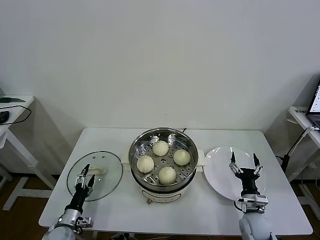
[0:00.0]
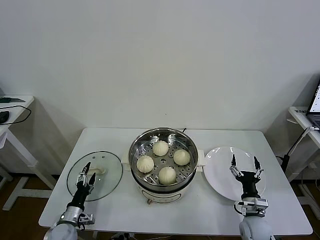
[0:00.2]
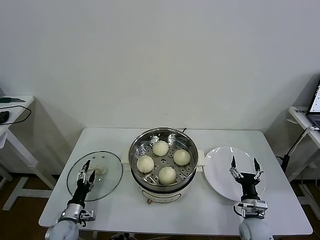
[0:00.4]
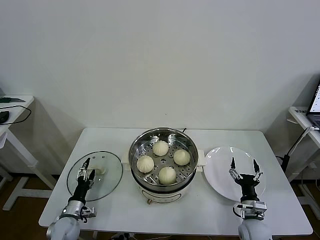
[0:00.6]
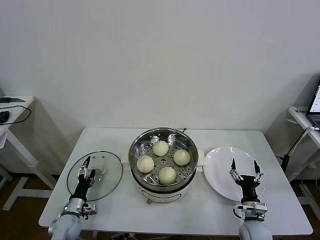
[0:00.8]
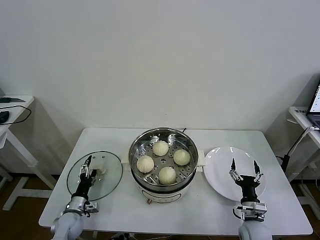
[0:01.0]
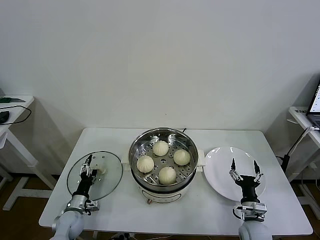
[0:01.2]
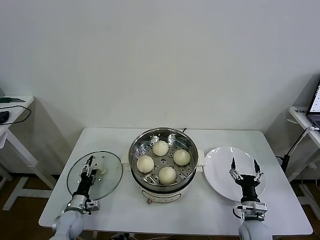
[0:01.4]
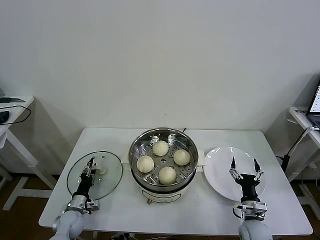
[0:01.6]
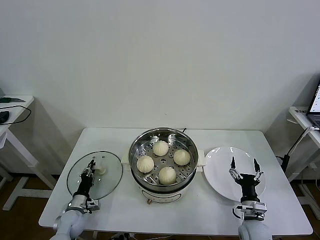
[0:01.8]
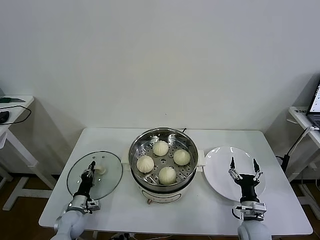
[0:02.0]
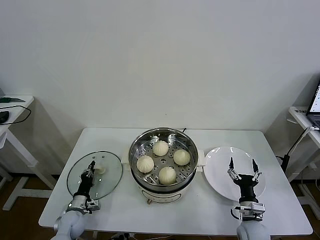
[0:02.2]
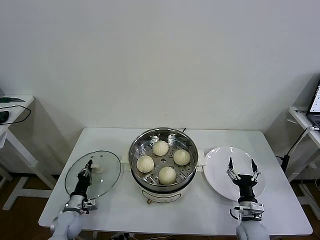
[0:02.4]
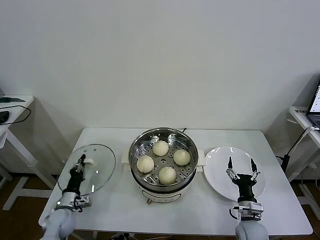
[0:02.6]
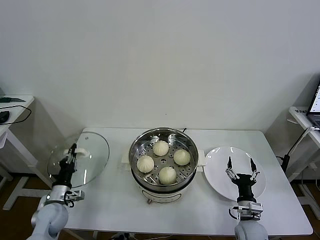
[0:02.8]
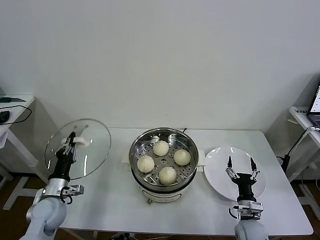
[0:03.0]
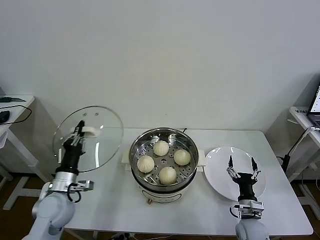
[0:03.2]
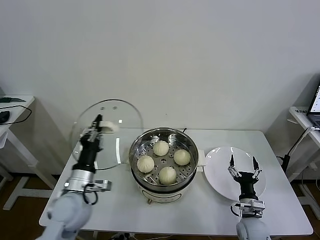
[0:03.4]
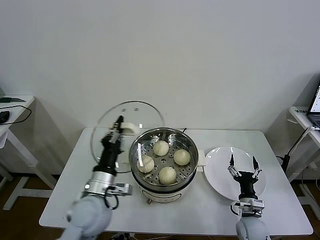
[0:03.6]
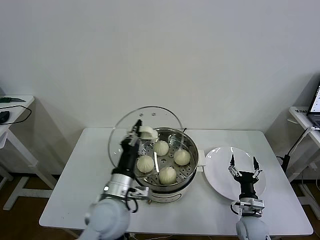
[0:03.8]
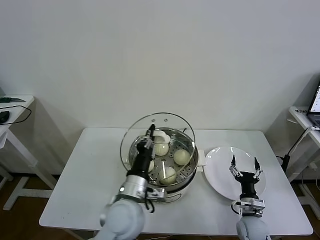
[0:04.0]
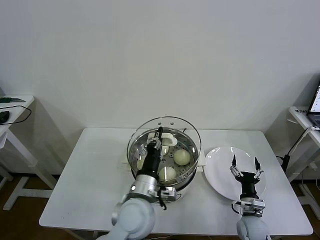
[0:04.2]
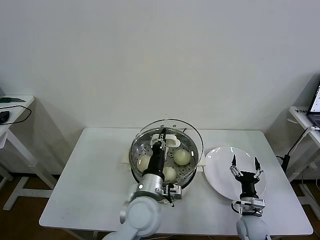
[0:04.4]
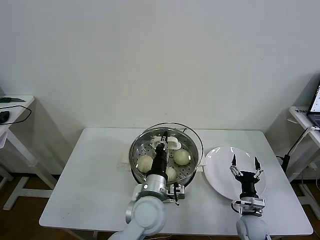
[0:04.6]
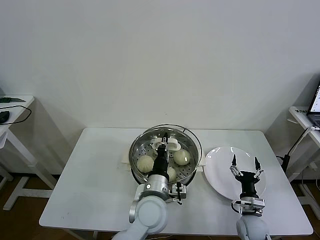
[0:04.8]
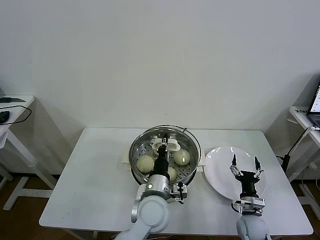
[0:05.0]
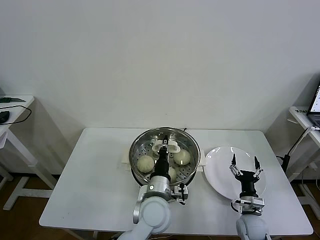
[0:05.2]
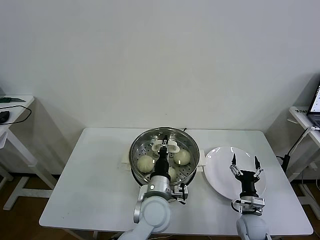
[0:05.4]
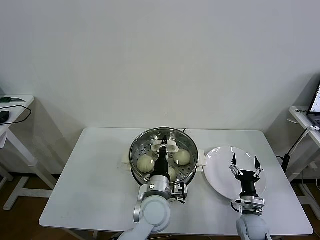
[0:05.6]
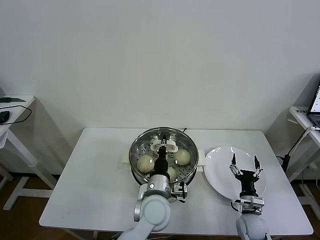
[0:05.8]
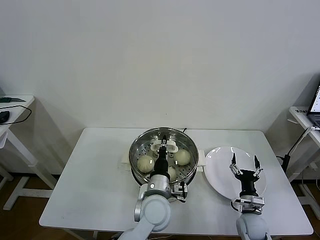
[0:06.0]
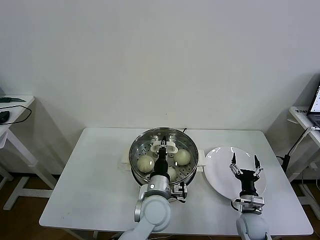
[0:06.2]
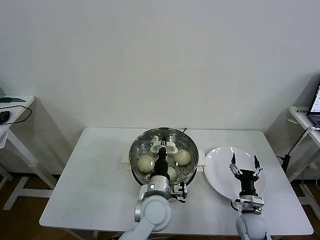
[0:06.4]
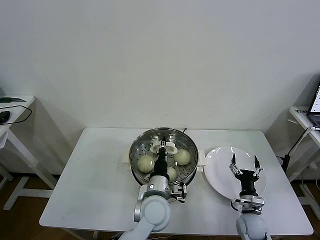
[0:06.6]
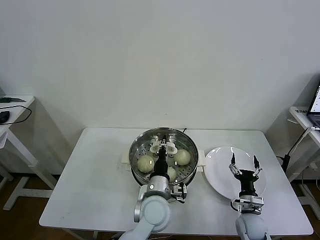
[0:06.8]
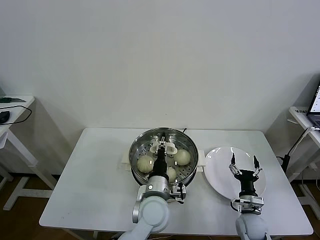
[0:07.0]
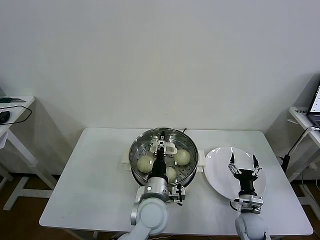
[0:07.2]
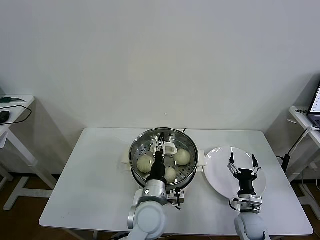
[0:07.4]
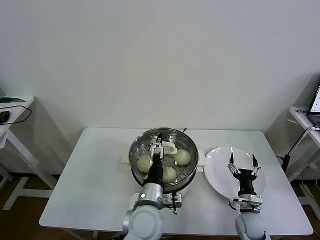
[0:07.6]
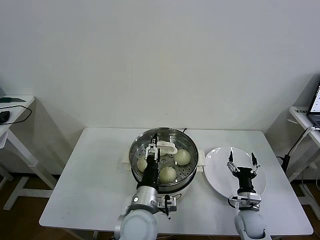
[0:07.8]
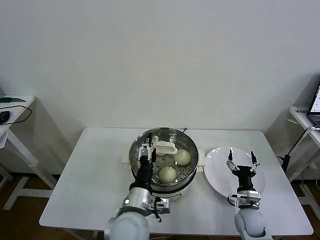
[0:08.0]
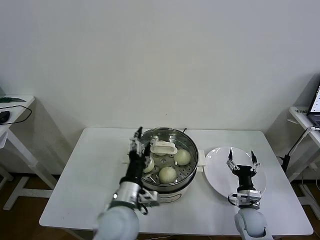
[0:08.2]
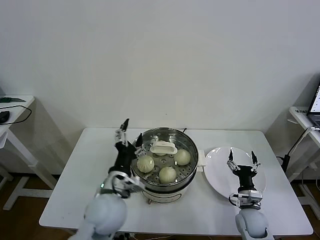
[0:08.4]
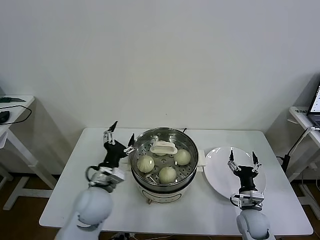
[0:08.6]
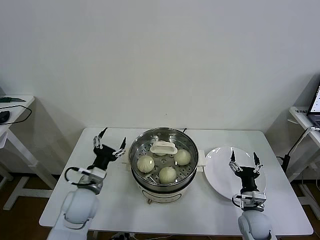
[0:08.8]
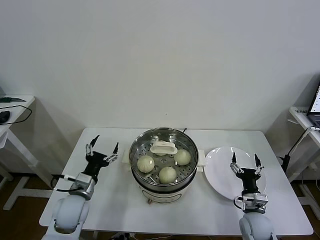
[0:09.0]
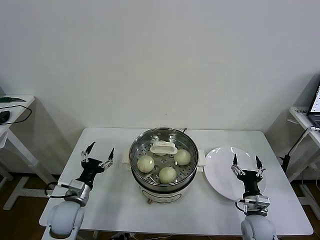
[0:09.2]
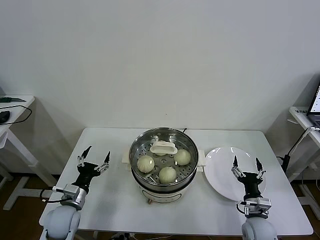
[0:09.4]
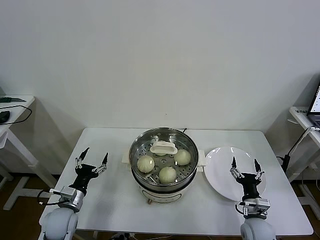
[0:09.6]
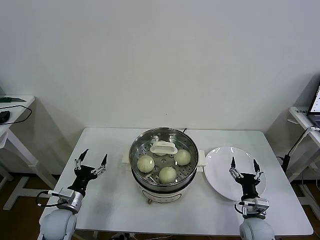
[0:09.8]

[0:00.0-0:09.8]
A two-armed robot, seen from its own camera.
Task of the whole recording: take steamed baozi put them in steamer then cover it.
Step, 0:00.0 to 0:02.0: Grasp the pot lid with left gripper.
Step, 0:02.2 to 0:06.8: Place the pot lid on the steamer with left gripper.
0:00.0 to 0:01.4: The left gripper shifts roughly 5 cm forward.
0:01.4 to 0:02.8: The left gripper moves upward, roughly 5 cm, and closes.
0:02.8 to 0:04.2: The left gripper goes about 35 cm to the right and upward.
0:04.2 to 0:05.6: The left gripper is displaced to the right and downward by approximately 5 cm.
0:05.6 to 0:07.0: The left gripper opens.
0:07.0 to 0:08.4: The left gripper travels to the left and upward by roughly 10 cm, and opens up.
0:08.4 to 0:09.8: The left gripper moves to the left and downward, about 25 cm.

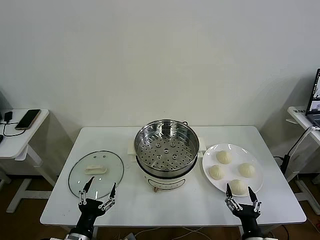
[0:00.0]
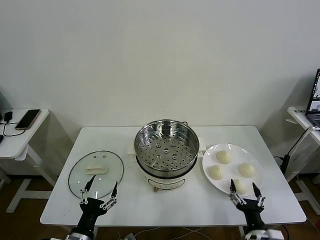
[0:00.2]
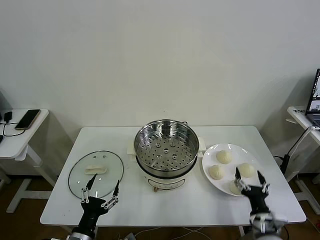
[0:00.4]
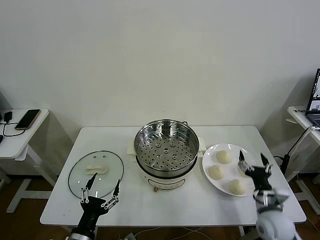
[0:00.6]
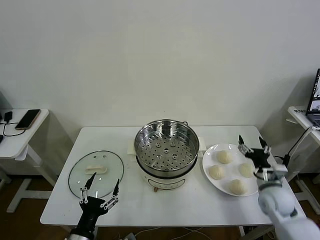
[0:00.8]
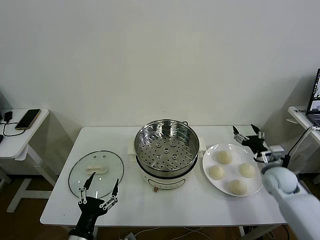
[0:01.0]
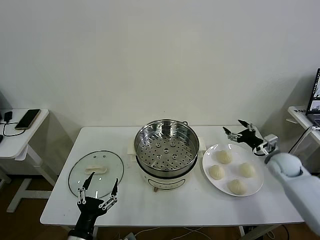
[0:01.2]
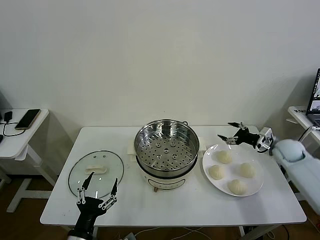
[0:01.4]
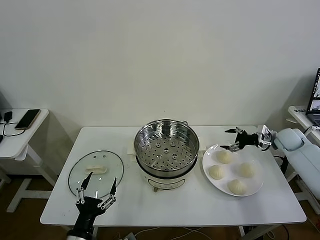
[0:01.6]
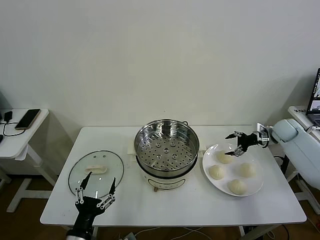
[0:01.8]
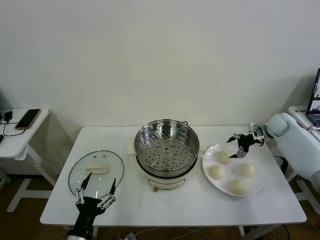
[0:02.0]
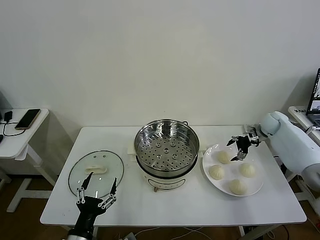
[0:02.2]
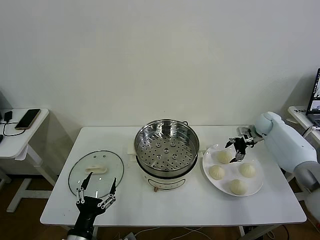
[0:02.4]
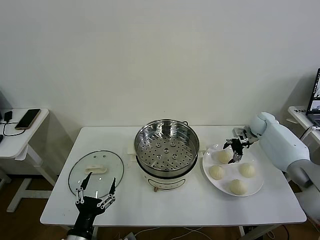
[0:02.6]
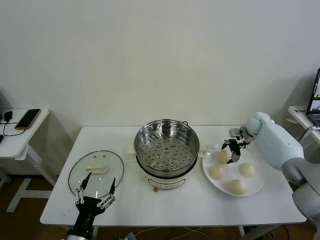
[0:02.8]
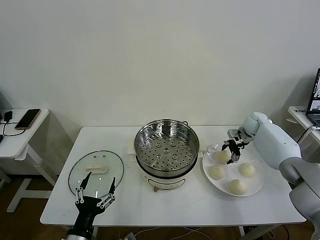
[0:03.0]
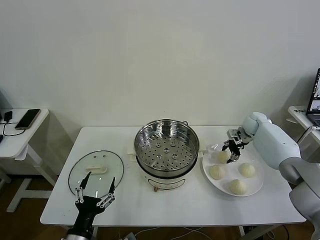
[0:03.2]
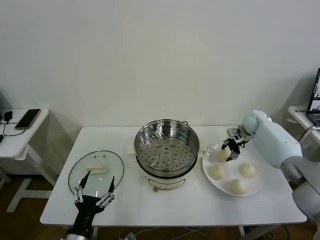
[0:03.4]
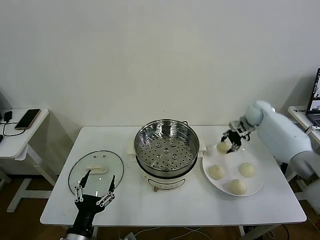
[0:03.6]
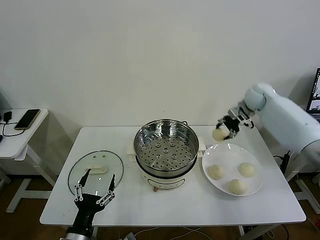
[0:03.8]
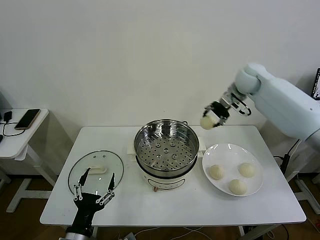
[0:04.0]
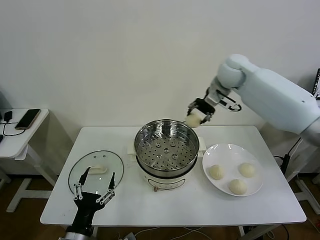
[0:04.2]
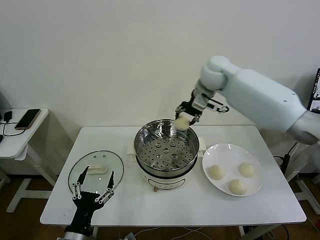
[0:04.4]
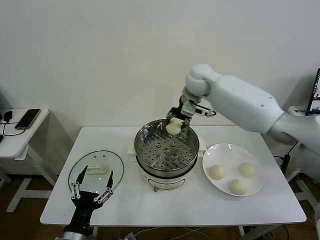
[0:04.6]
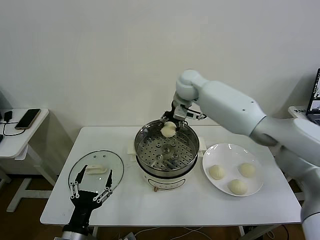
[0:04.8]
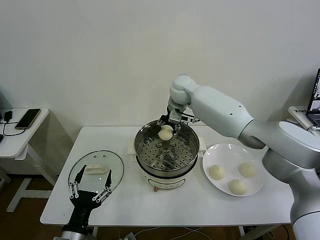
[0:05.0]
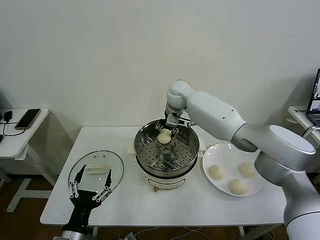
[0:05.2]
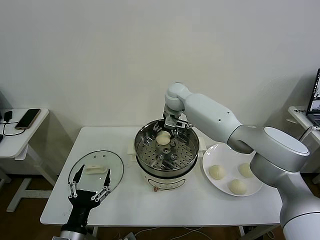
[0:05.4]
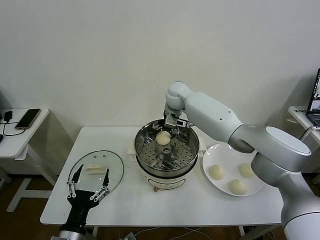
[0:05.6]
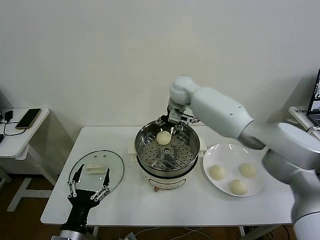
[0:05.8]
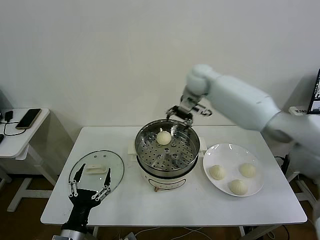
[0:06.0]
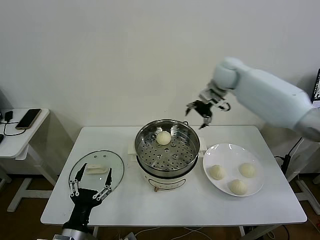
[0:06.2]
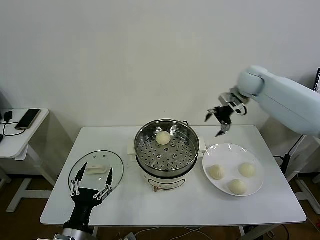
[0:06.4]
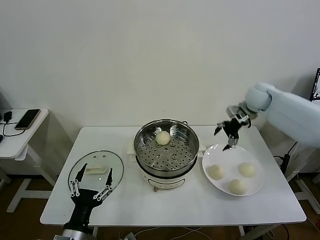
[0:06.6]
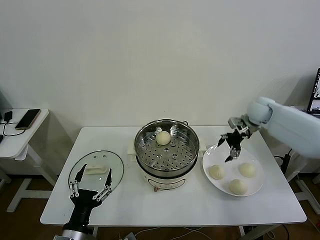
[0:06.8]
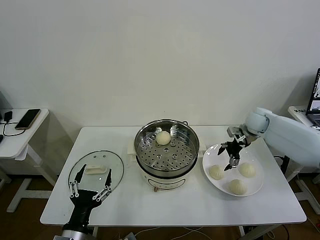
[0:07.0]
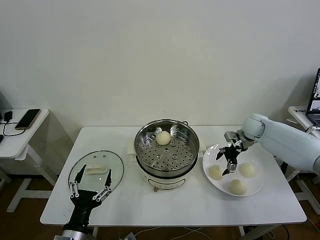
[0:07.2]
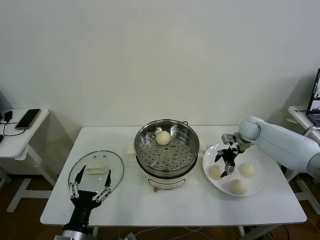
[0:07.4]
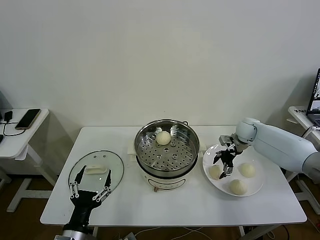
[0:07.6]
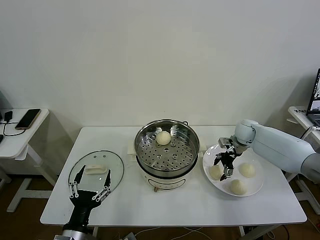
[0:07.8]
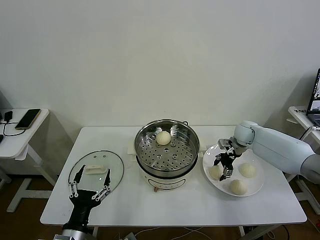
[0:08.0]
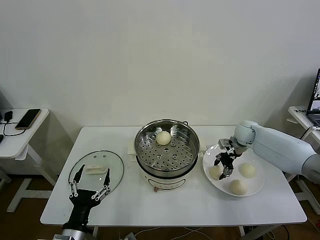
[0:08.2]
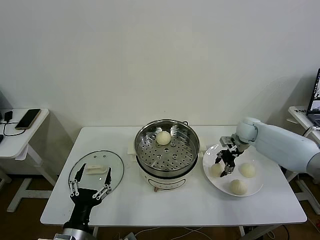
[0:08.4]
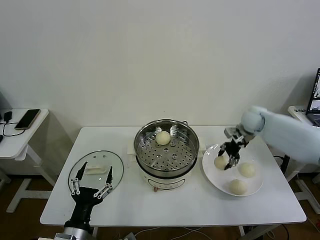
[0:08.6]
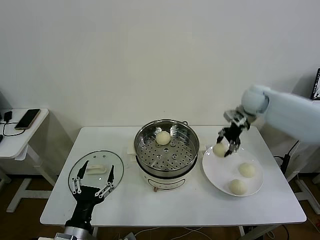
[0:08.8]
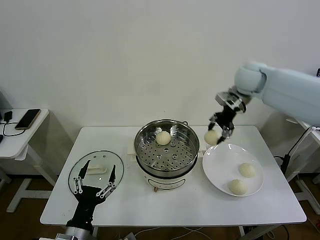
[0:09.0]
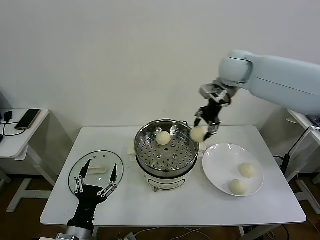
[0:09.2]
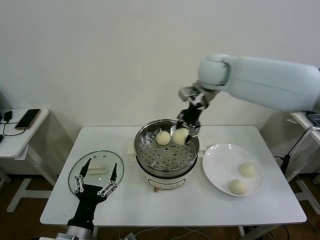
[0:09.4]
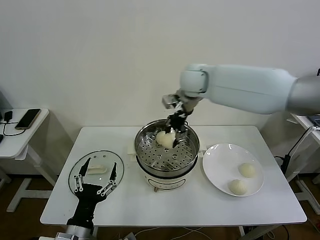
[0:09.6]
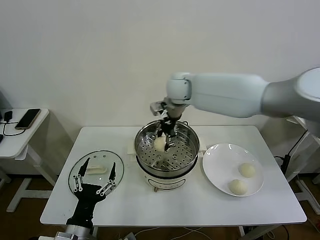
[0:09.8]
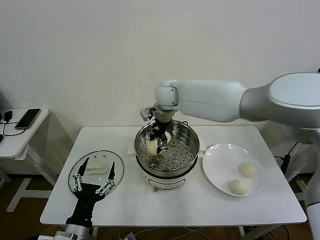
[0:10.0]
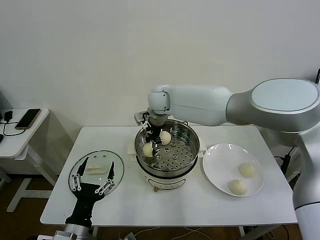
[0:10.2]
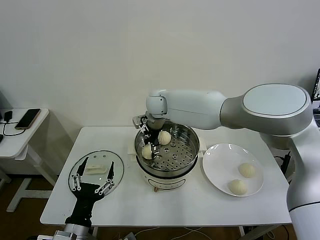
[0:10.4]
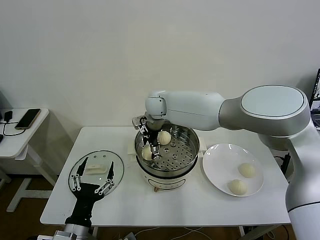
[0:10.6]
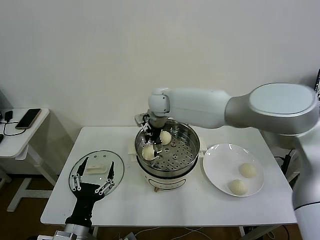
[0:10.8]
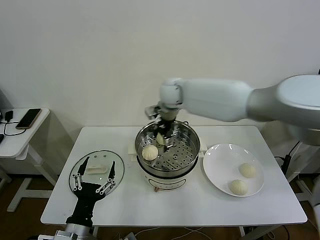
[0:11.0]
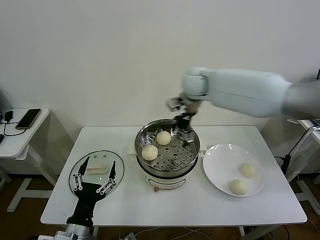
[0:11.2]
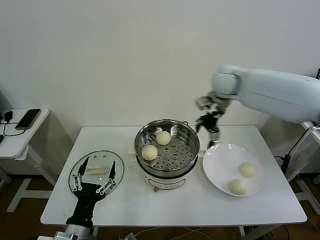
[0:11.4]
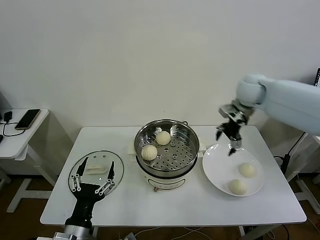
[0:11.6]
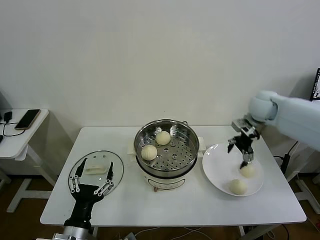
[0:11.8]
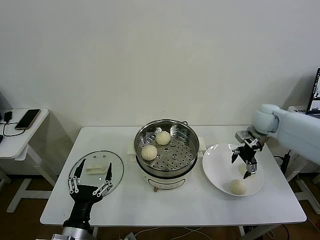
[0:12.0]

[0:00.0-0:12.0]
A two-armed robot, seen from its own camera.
Task of the whole recording: take steamed baozi put them in steamer then cover it.
Step, 0:00.0 to 0:03.2: Grasp the baozi in the plate with right gripper.
Step, 0:03.4 to 0:05.8: Place the baozi on the steamer with right gripper.
Step, 0:06.0 to 0:08.2: Grasp the baozi in the plate with right gripper.
Step, 0:08.4 to 0:10.8: Place the baozi on the steamer with right gripper.
0:01.6 to 0:03.0: The right gripper is displaced to the left and forward by approximately 10 cm, and closes.
0:03.0 to 0:04.4: The right gripper shifts approximately 35 cm to the left and upward, and closes up.
0:04.4 to 0:06.0: The right gripper travels to the left and back again, roughly 10 cm each way, and opens its fingers.
0:06.0 to 0:07.6: The right gripper is displaced downward and to the right by roughly 30 cm.
0:07.6 to 0:09.0: The right gripper travels upward by roughly 25 cm, and closes up.
0:09.0 to 0:10.4: The right gripper moves to the left and downward, approximately 30 cm, and opens its fingers.
0:10.4 to 0:12.0: The right gripper is displaced to the right by approximately 40 cm, and opens its fingers.
